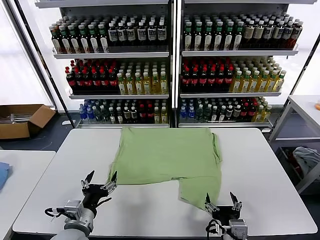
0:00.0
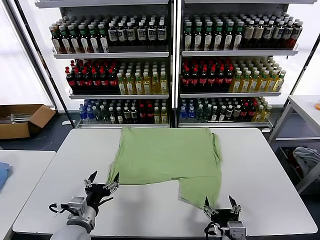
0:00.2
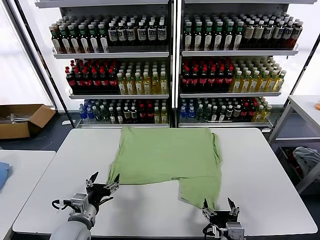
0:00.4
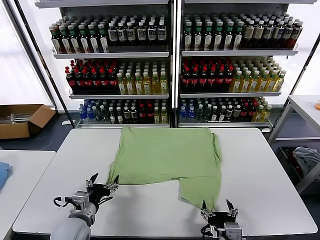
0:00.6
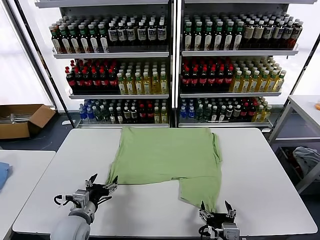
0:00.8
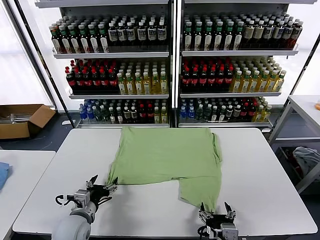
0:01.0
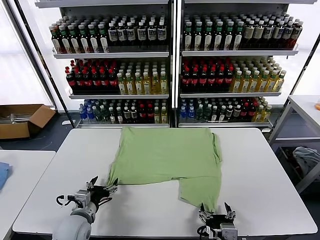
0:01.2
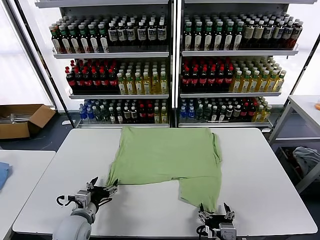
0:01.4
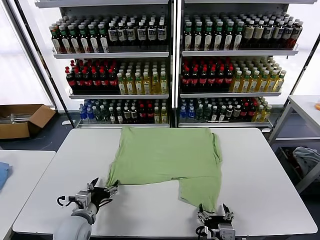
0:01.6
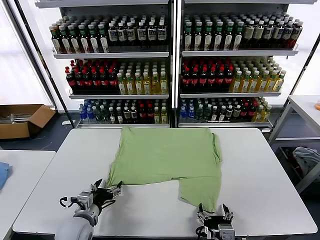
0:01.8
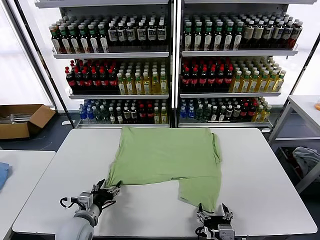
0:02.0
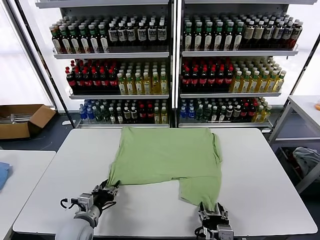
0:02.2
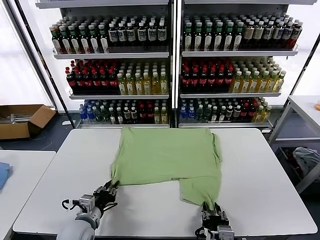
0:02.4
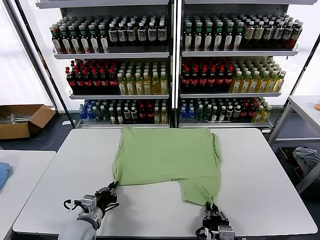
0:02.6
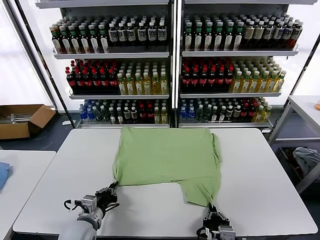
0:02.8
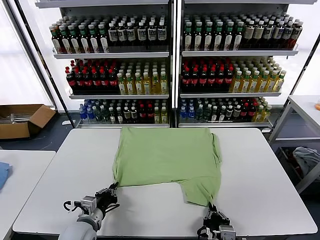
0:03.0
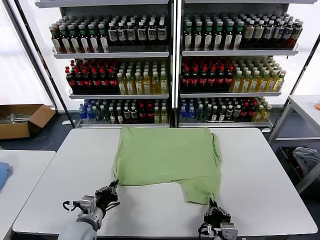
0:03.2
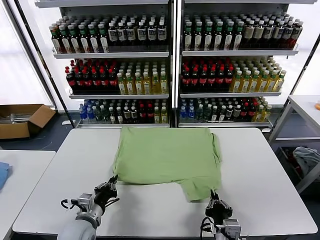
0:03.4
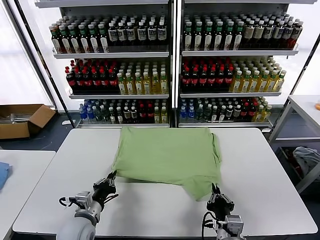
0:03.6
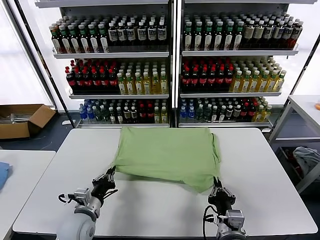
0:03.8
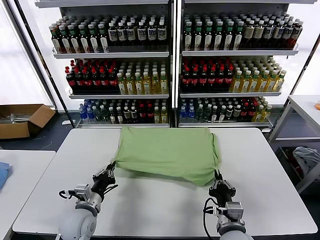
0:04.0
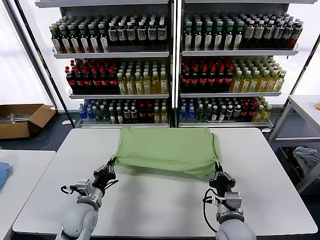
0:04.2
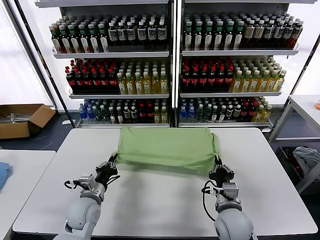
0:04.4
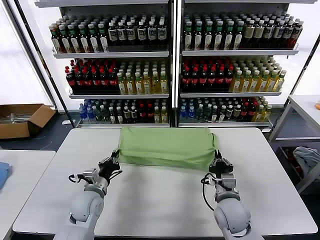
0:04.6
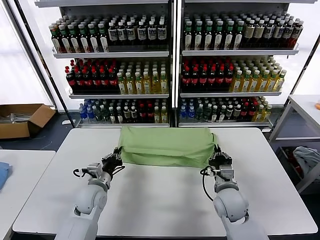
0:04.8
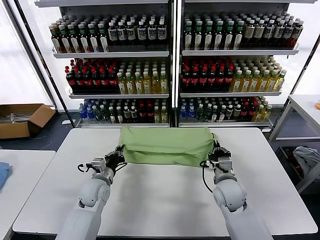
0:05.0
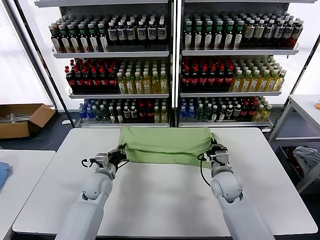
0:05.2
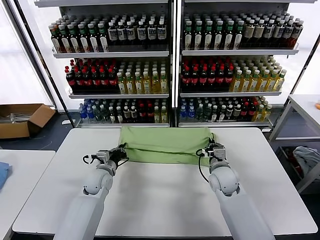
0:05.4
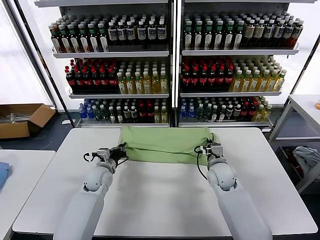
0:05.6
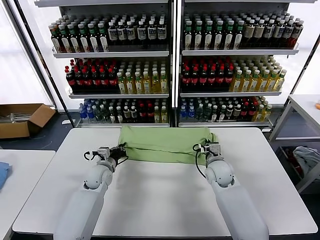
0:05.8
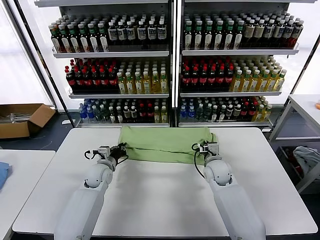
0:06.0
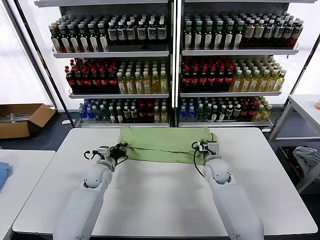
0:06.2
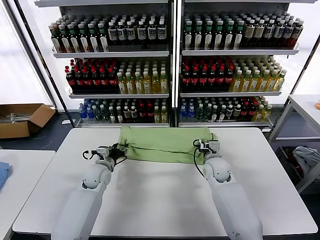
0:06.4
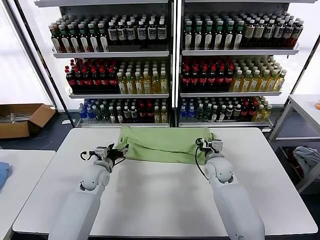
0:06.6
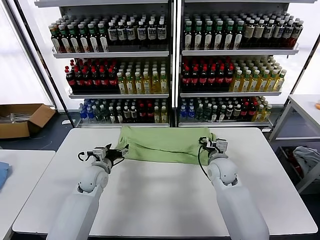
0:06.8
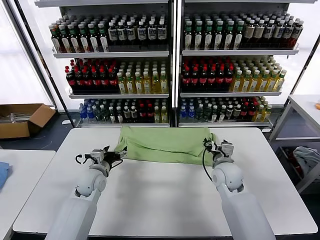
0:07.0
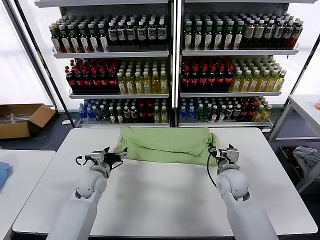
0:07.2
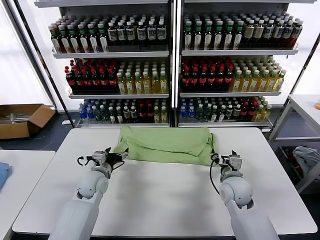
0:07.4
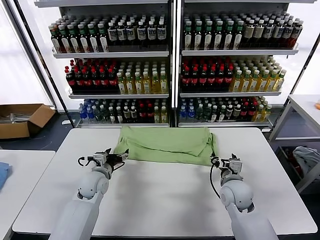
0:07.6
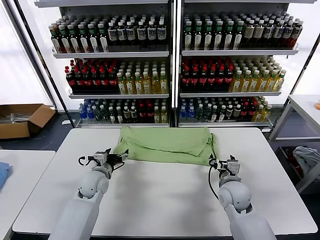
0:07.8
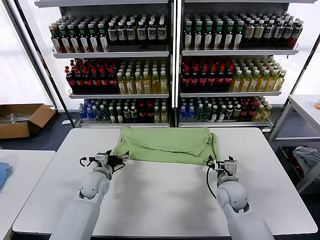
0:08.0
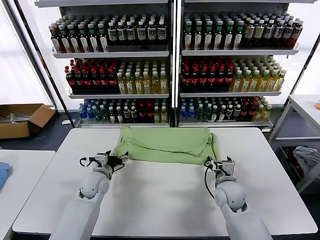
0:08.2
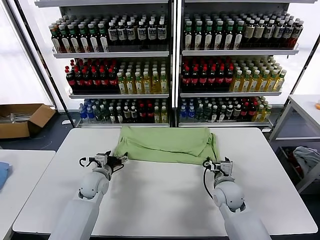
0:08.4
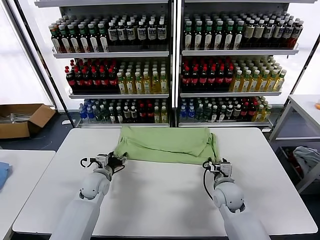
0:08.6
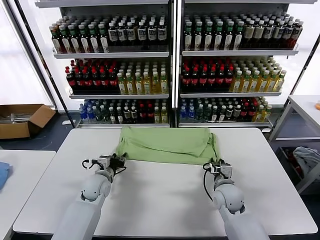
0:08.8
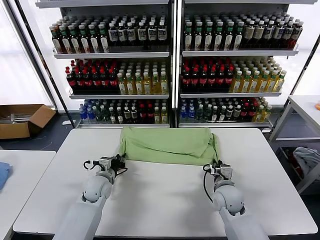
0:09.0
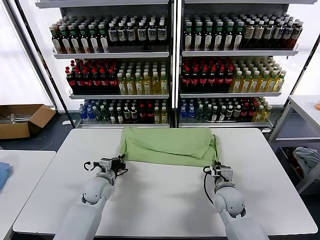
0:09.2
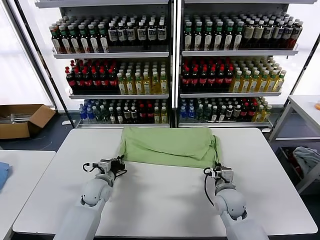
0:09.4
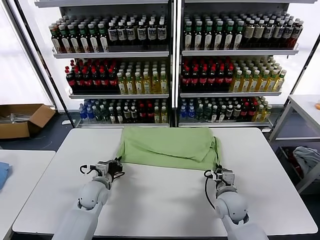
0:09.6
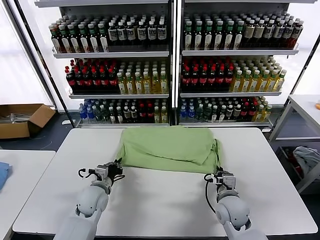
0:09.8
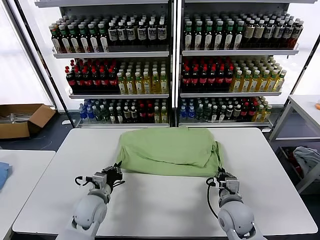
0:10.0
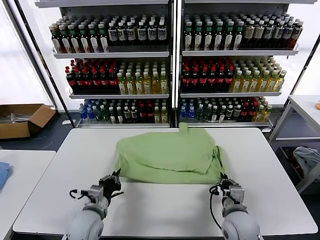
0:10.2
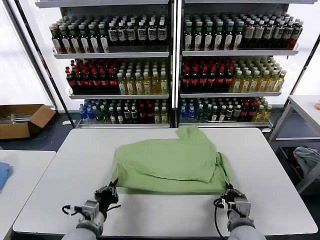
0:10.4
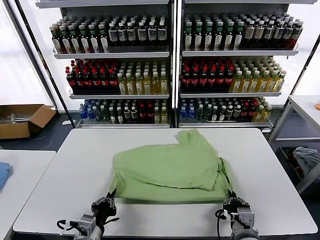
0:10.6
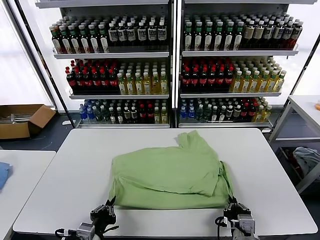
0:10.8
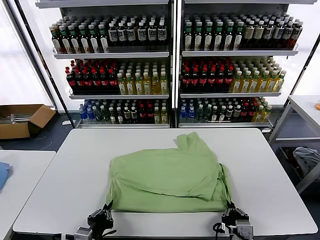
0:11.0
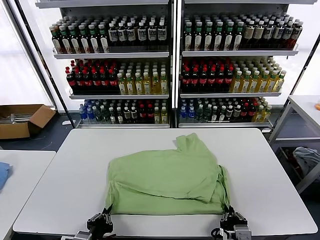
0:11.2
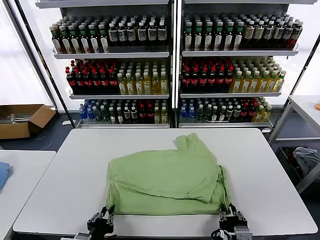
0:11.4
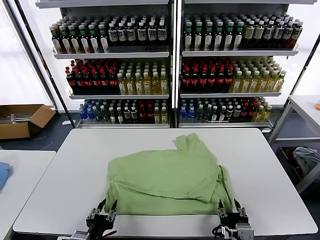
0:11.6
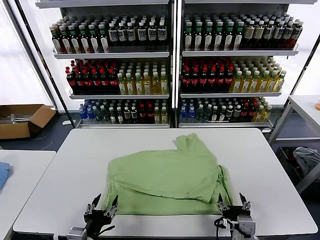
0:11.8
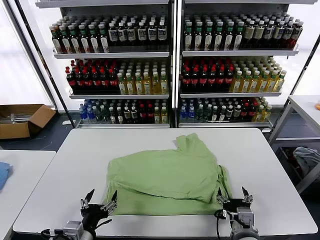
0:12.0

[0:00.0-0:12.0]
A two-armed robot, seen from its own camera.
Task of the whole recording: fold and organize the clothes.
Step, 0:00.0 to 0:02.8: use both grippers simultaneously to clamp the lower edge of the clothing fabric.
Step, 0:03.0 to 0:06.8: use both grippers to drag the lower edge of the fabric forward and fold it over the upper edge.
Step, 0:07.0 to 0:11.6: Drag the clothes downward with both gripper.
0:01.6 to 0:03.0: The right gripper closes up. Meanwhile the left gripper closes its fingers.
0:03.0 to 0:04.4: The right gripper goes some 10 cm forward; the left gripper is displaced forward by some 5 cm.
0:04.4 to 0:06.0: Both grippers travel together forward, roughly 15 cm.
0:06.0 to 0:07.6: The right gripper heads backward, covering approximately 10 cm, and opens its fingers, while the left gripper shifts by about 5 cm, and opens up.
0:07.6 to 0:09.0: The right gripper closes its fingers. Meanwhile the left gripper closes its fingers.
0:09.0 to 0:10.4: Both grippers travel together backward, roughly 15 cm.
0:10.4 to 0:12.0: The right gripper opens its fingers. Meanwhile the left gripper goes some 5 cm backward, and opens up.

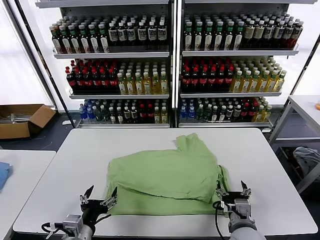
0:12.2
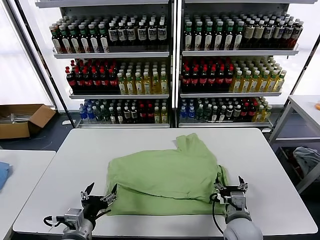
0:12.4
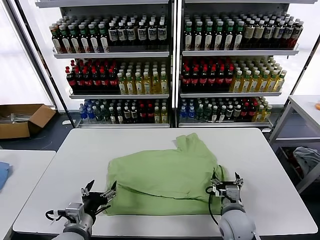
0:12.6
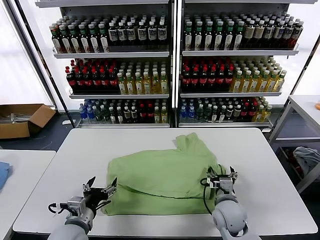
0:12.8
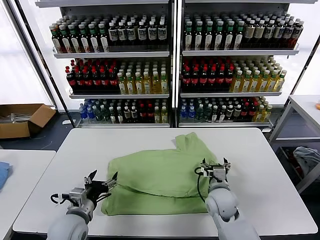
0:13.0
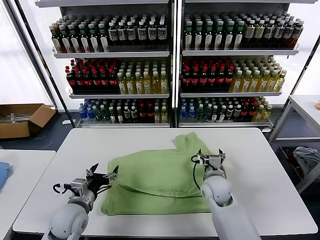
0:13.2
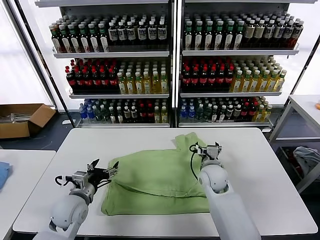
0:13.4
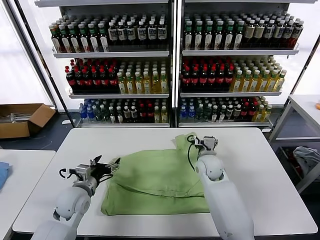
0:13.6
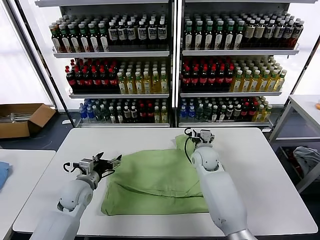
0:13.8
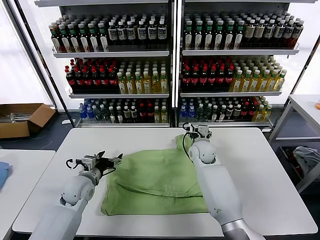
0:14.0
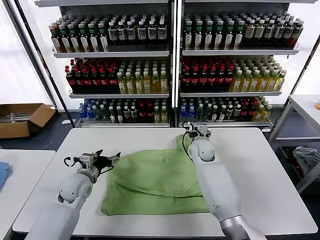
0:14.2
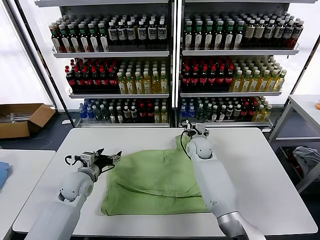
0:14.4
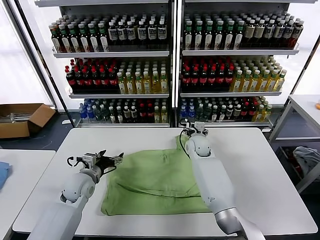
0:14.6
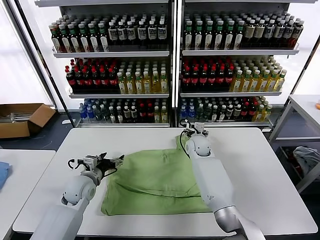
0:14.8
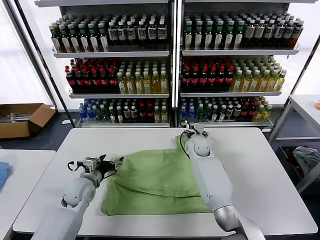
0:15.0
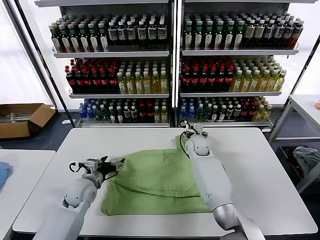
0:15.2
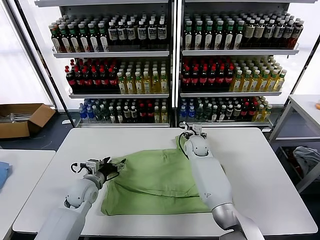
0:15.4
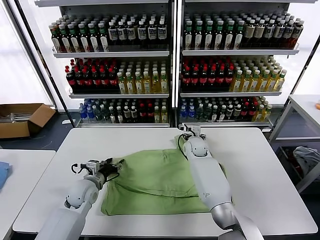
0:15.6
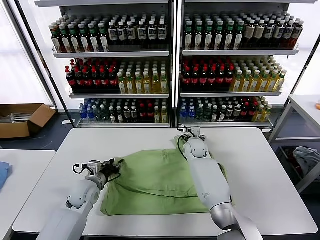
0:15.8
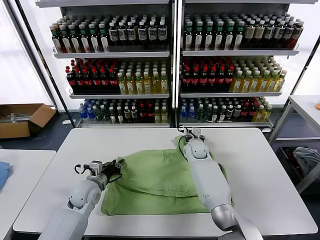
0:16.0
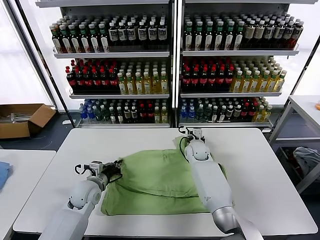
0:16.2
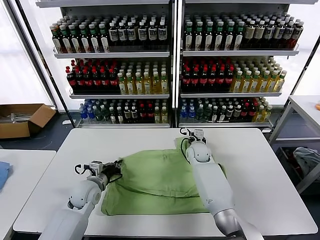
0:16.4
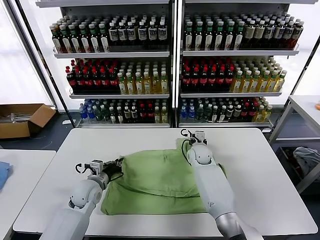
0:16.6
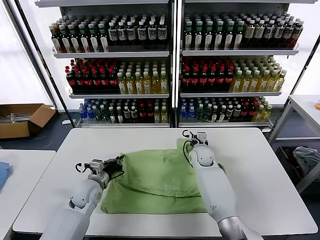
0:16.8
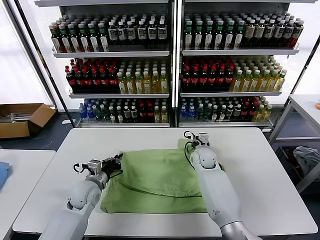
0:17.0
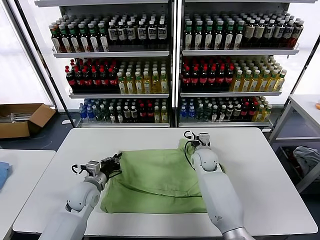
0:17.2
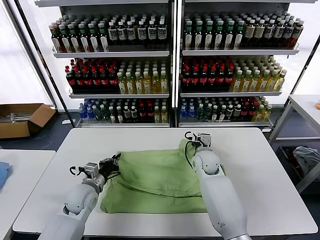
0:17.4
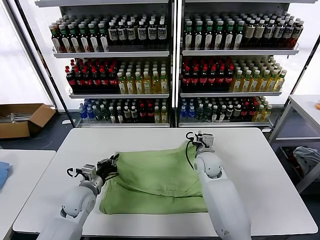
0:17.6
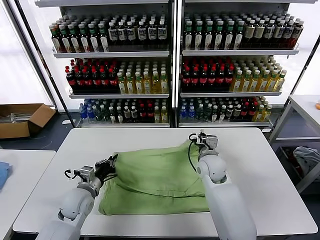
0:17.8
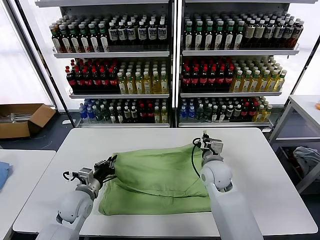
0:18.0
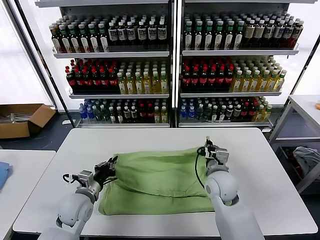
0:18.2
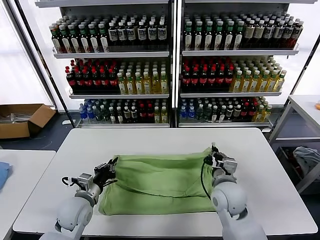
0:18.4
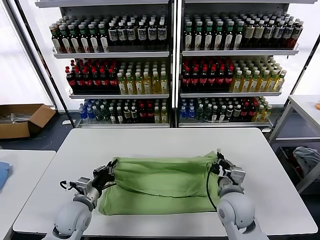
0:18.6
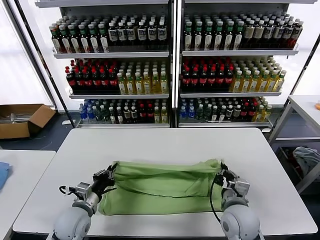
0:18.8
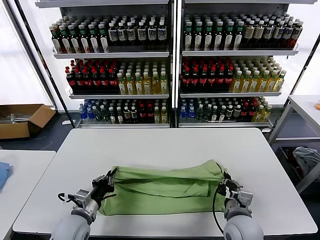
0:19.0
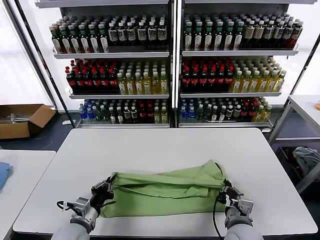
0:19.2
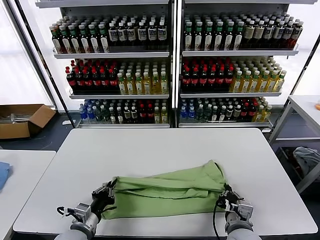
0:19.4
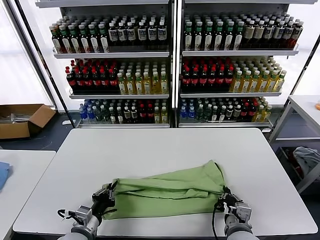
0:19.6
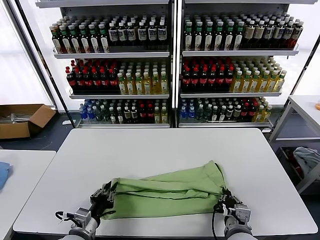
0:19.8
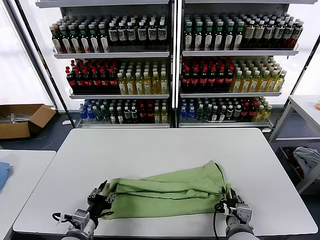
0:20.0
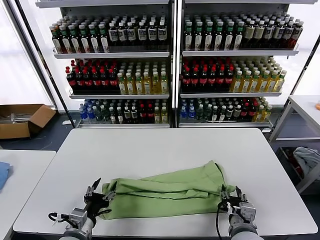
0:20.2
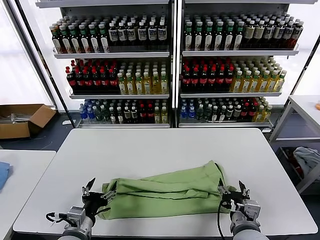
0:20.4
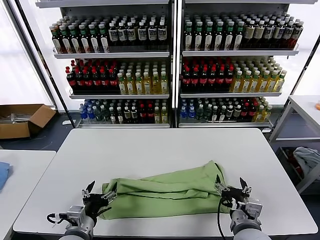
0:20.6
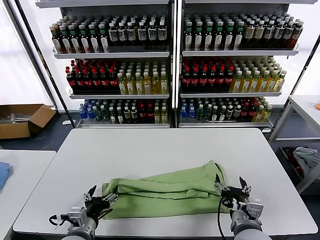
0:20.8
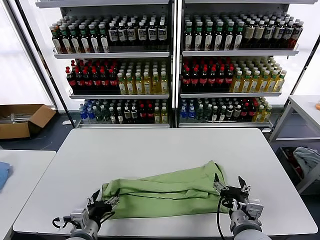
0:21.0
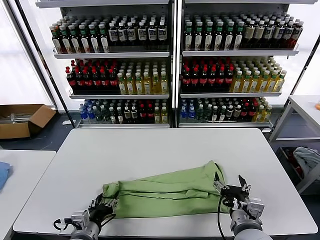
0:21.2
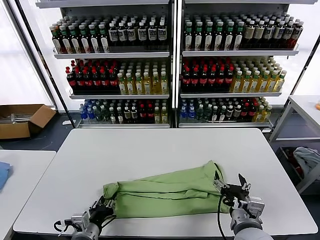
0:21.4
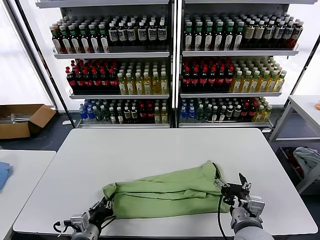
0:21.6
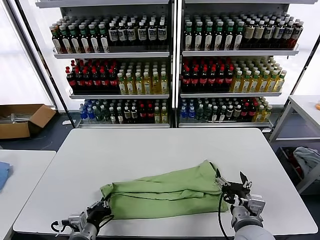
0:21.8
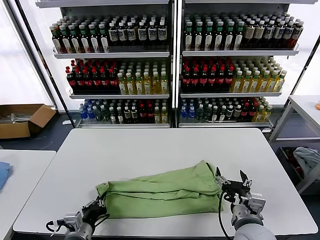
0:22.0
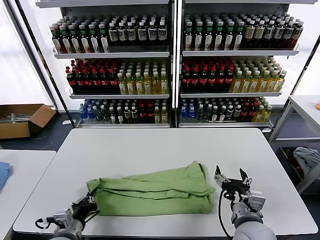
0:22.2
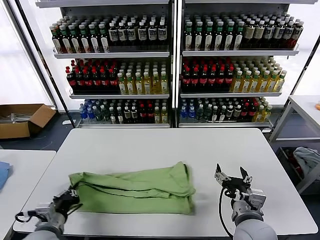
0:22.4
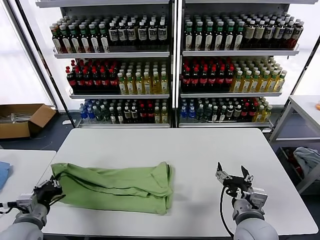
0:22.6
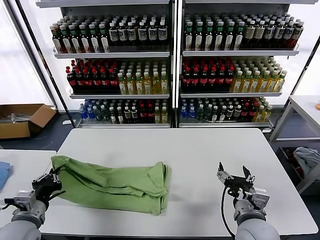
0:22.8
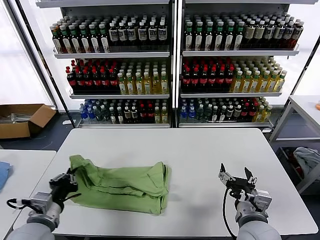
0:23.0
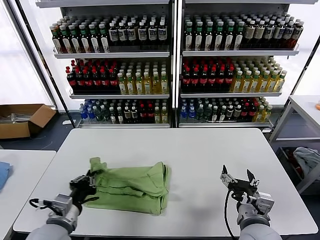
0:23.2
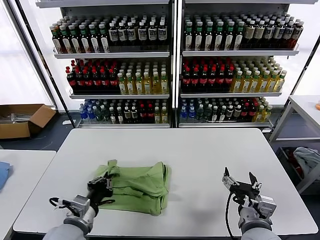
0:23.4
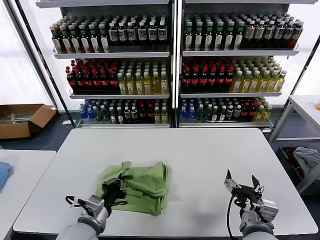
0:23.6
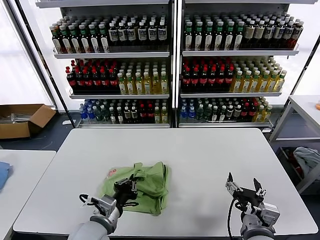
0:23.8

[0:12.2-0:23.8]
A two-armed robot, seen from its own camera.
Task of the whole recording: fold and organize the clothes.
Step, 0:12.2 to 0:16.6: use both grippers simultaneously to clamp the upper edge of the clothing fabric.
Step, 0:16.8 to 0:20.2: use both grippers to drag the upper edge of the fabric backward and fold it over the lower edge.
Step, 0:20.4 to 0:21.6: use the left gripper to clamp the left edge of the fabric.
0:12.2 to 0:13.6: Both grippers travel together forward, approximately 20 cm.
0:13.6 to 0:15.0: The right gripper is displaced forward by roughly 10 cm.
0:15.0 to 0:16.6: The right gripper closes up, while the left gripper closes its fingers.
0:16.6 to 0:18.0: The right gripper moves backward and upward, approximately 15 cm; the left gripper changes place by about 5 cm.
0:18.0 to 0:19.4: The left gripper is displaced backward by approximately 10 cm; the right gripper shifts about 20 cm backward.
0:19.4 to 0:21.0: The left gripper opens. The right gripper shifts approximately 5 cm upward, and opens up.
0:21.0 to 0:22.4: The left gripper heads to the left, covering about 10 cm, and closes up.
0:22.4 to 0:23.8: The left gripper goes about 15 cm to the right.
